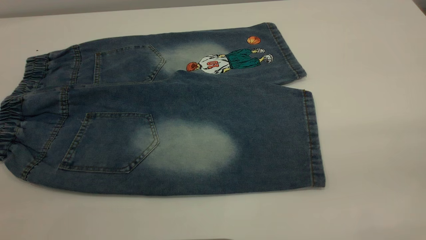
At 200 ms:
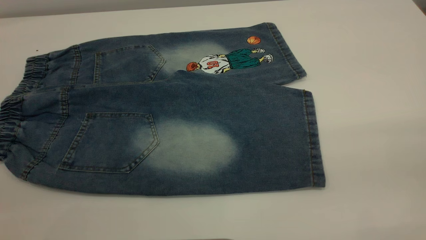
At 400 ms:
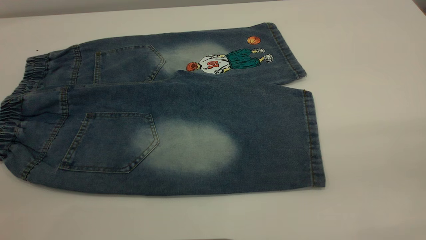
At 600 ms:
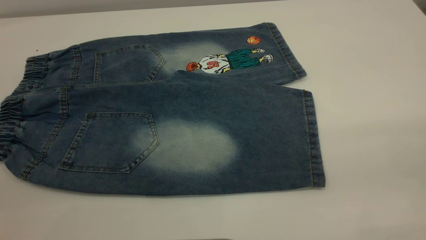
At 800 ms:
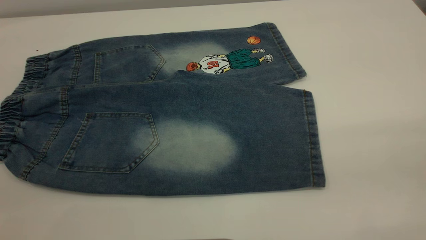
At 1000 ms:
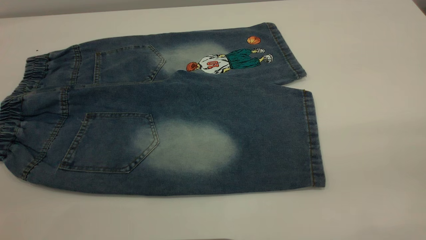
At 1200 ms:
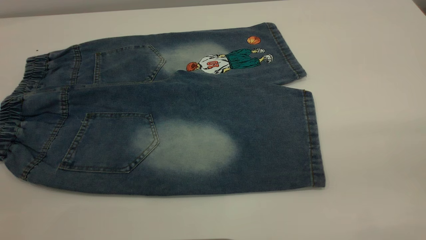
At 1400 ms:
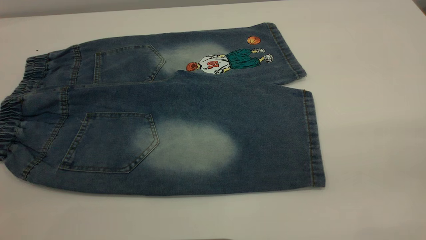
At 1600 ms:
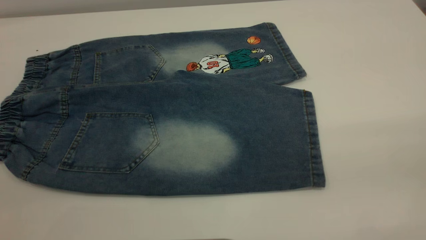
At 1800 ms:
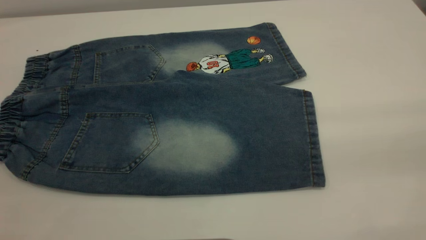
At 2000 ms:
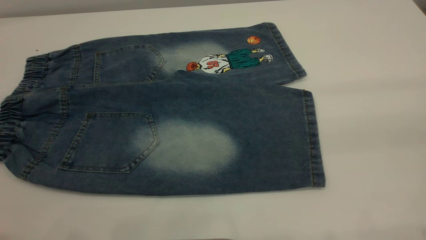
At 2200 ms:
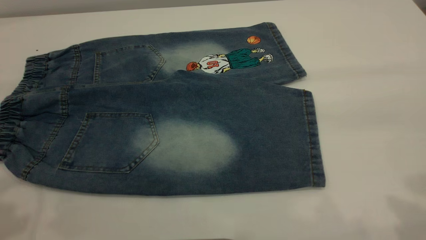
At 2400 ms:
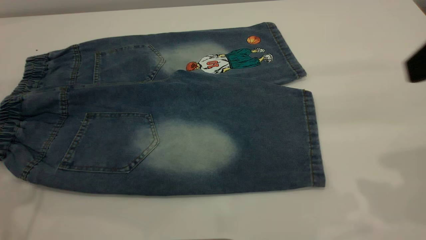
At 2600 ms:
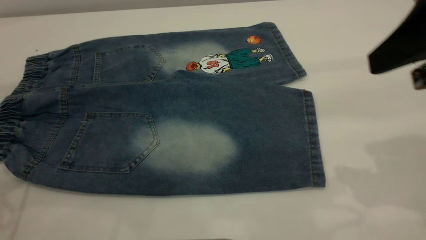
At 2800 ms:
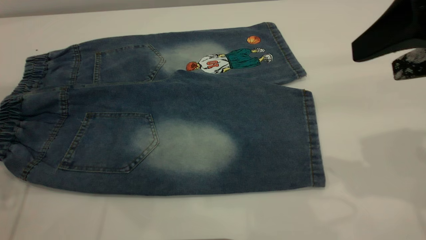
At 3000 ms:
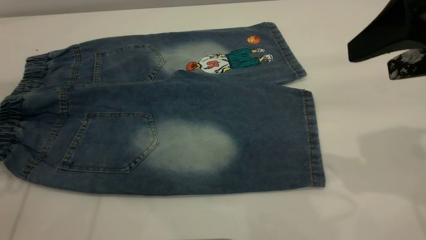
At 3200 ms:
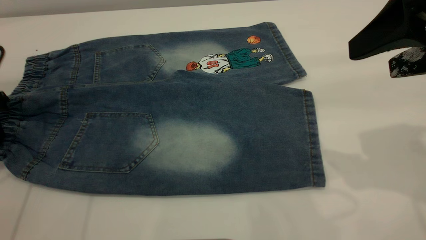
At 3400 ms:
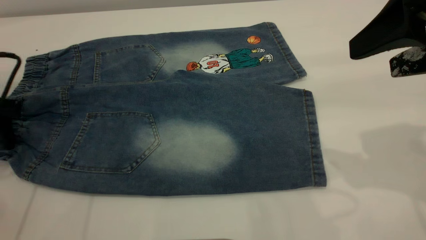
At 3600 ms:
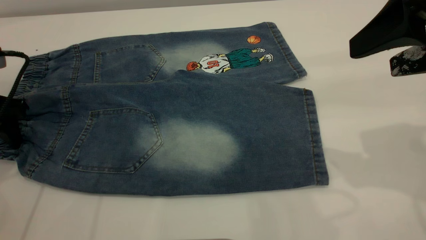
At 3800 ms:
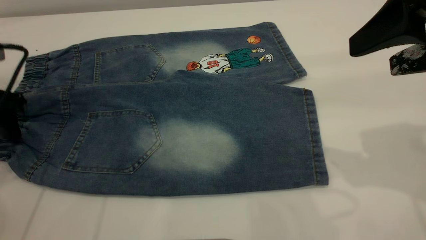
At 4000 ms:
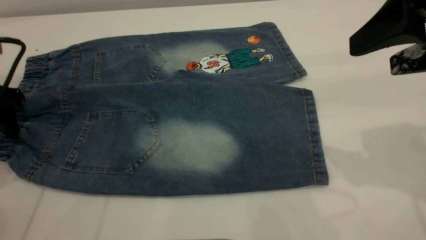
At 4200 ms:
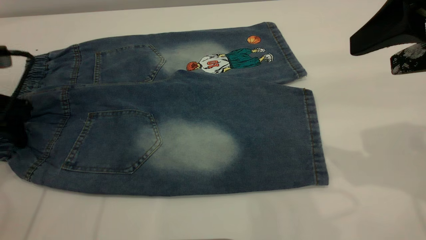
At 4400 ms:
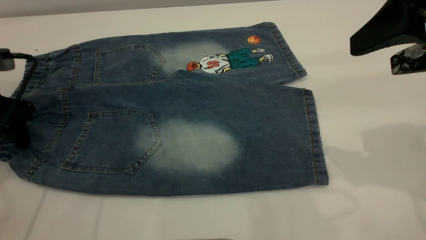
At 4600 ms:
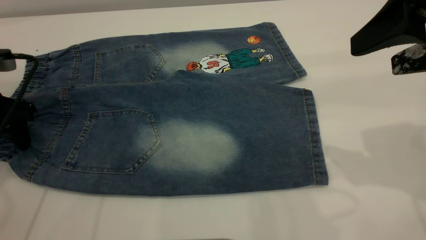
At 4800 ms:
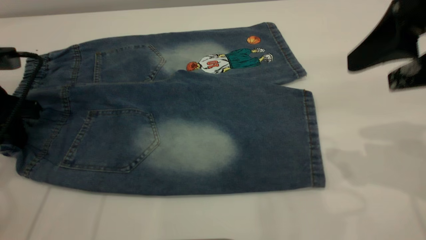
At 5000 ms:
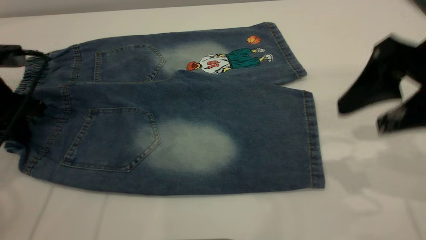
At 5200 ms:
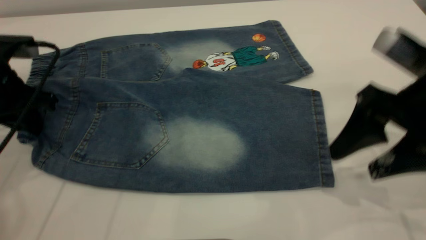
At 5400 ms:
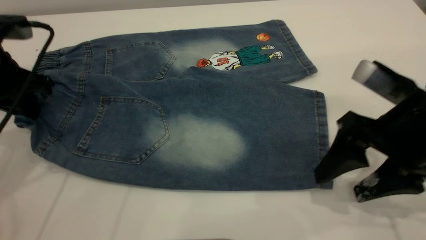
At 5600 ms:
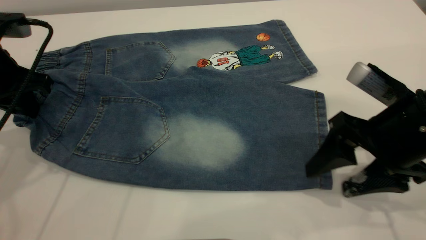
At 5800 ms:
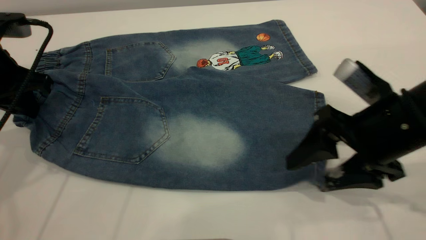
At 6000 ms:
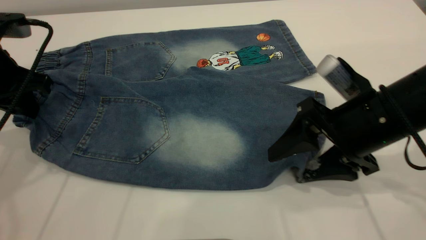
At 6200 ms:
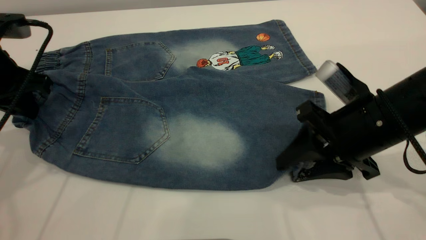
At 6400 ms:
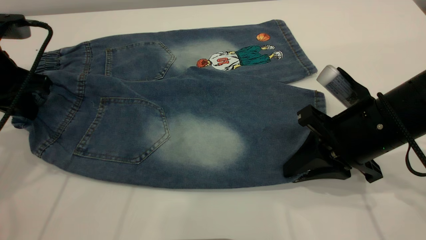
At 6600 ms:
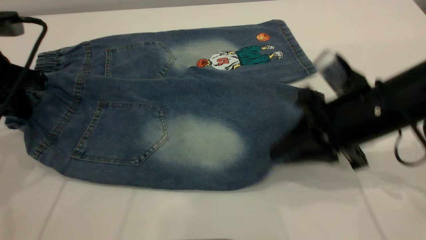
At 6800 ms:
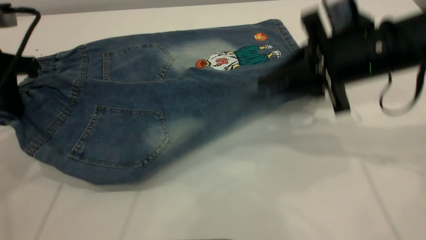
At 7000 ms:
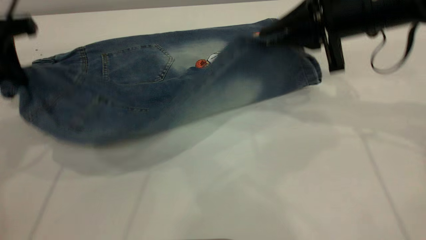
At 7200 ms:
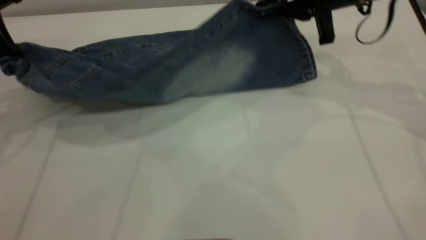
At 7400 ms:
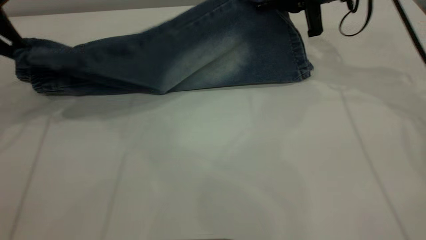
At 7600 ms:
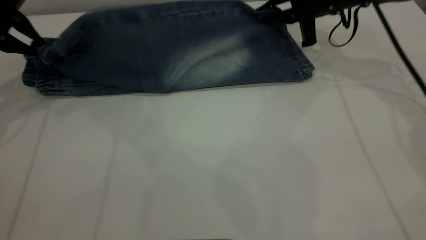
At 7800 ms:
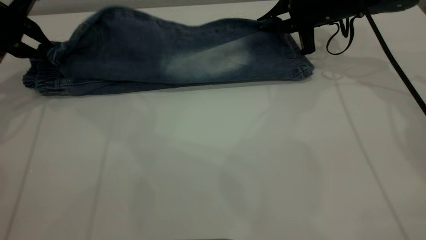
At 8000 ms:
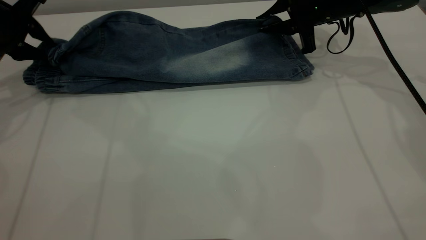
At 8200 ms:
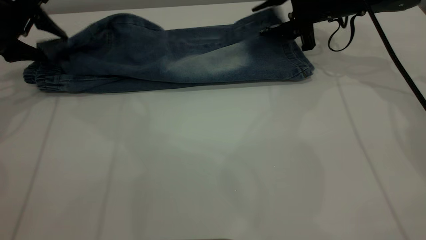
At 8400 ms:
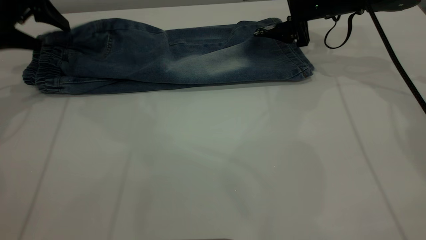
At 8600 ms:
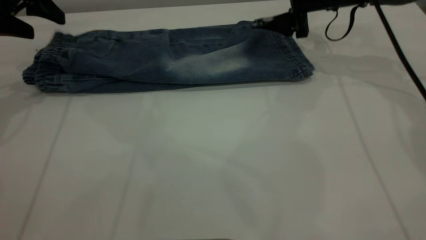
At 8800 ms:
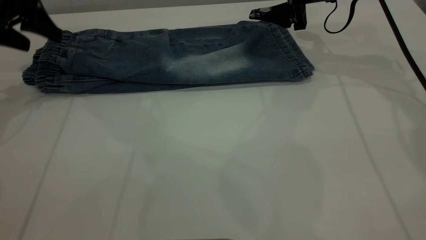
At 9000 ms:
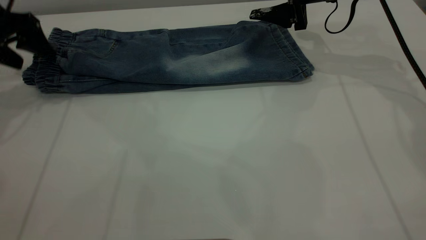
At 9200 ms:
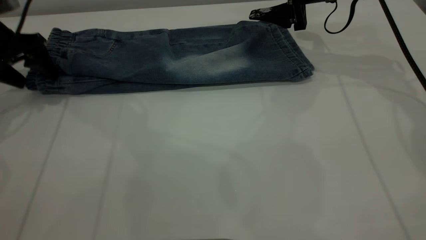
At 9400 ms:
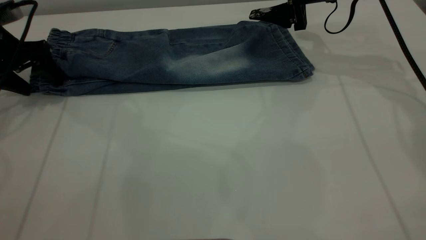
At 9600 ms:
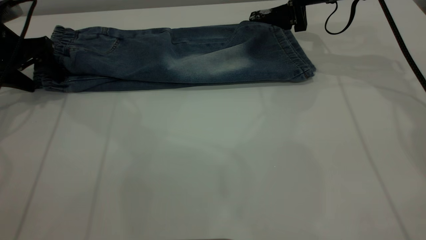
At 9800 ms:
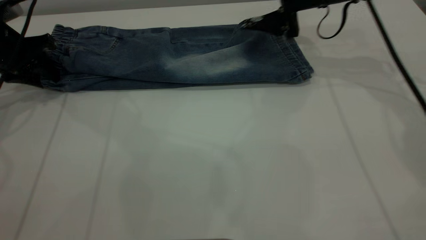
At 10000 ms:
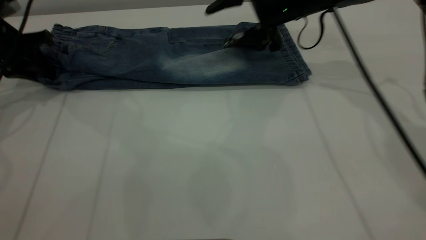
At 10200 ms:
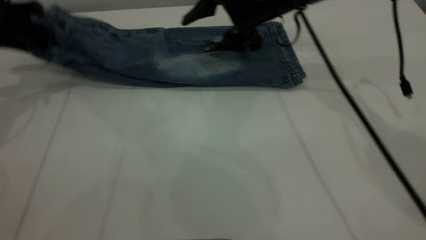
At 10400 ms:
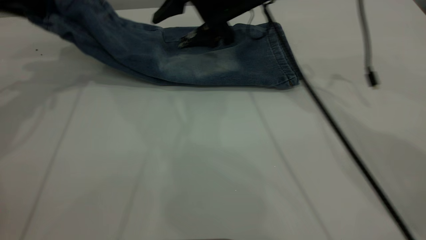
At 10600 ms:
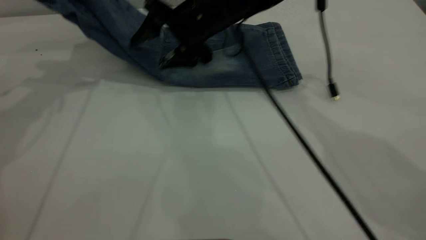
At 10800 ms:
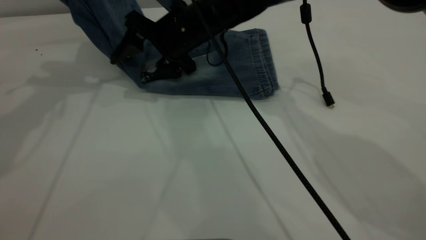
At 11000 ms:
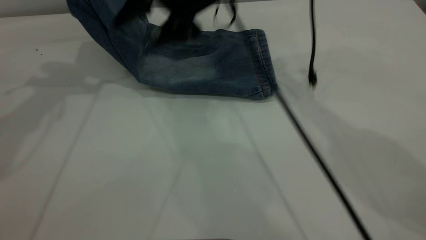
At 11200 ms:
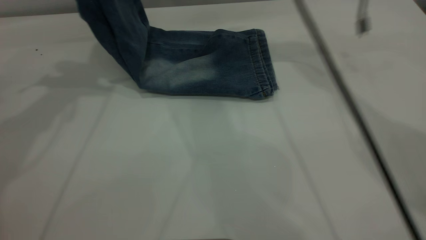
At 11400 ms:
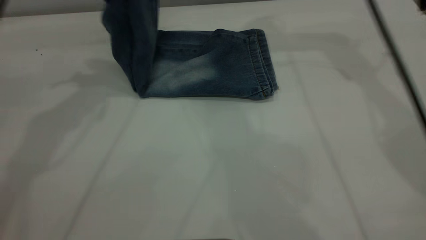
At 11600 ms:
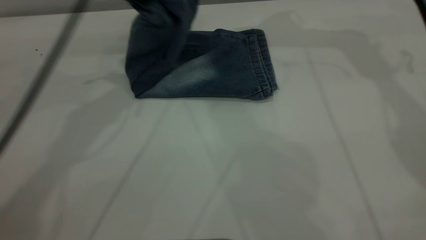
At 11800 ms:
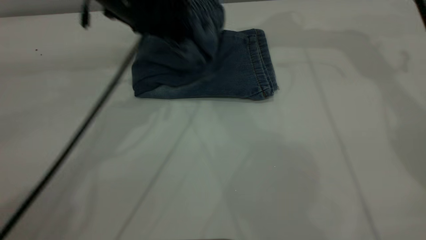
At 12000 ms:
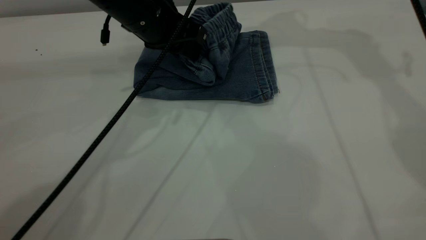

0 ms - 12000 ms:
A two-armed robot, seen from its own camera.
Step, 0 ms - 8800 ms: Fold the bottom of the pants upward.
0 ms - 1600 ms: Both grippers stay put.
1600 ms - 3000 ms: The right gripper shifts about 25 cm forward and downward.
3000 ms - 4400 ms: The left gripper changes place by some 5 cm.
4400 ms - 6000 ms: The right gripper travels downward by about 15 cm. The left gripper moves some 5 cm, and closes its fingers.
6000 ms - 7600 ms: The right gripper goes about 25 cm forward, and closes, while the left gripper shifts some 10 cm forward and to the left.
7600 ms - 9000 ms: The left gripper opens its fingers. Meanwhile the right gripper opens up.
9000 ms - 10400 ms: The right gripper goes some 15 cm to the left. Meanwhile the left gripper moves upward, roughly 5 cm, and closes its fingers.
10400 ms - 12000 ms: The left gripper heads to the right, covering some 20 cm, and opens up, while the right gripper moves upward and to the right, about 25 cm.

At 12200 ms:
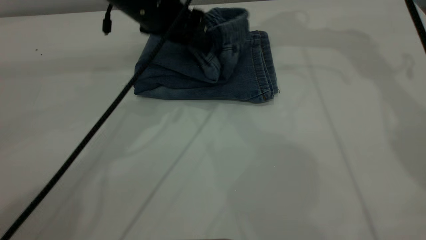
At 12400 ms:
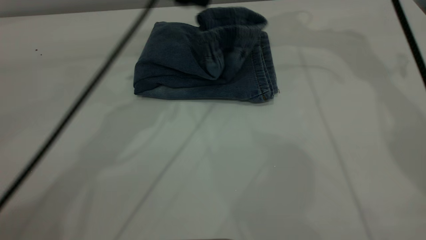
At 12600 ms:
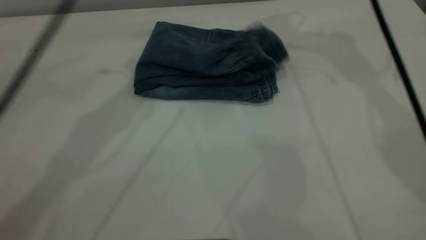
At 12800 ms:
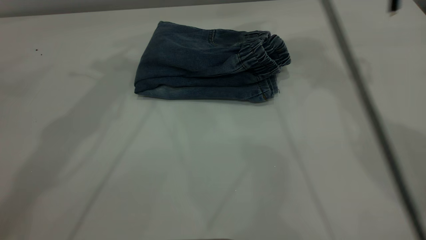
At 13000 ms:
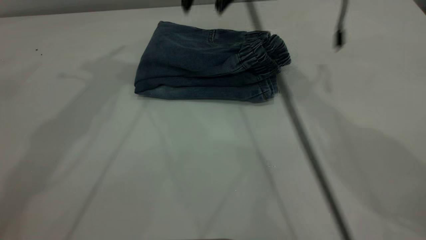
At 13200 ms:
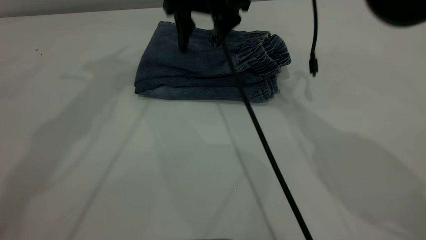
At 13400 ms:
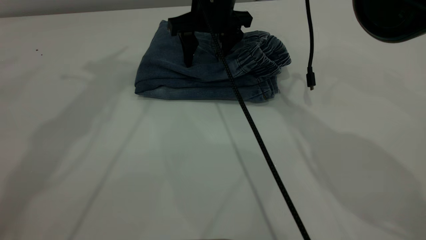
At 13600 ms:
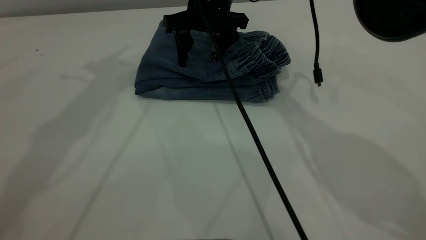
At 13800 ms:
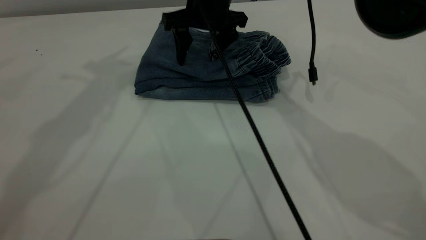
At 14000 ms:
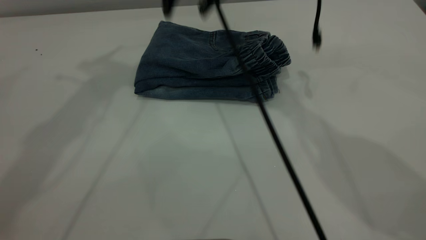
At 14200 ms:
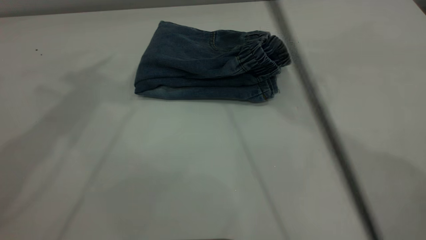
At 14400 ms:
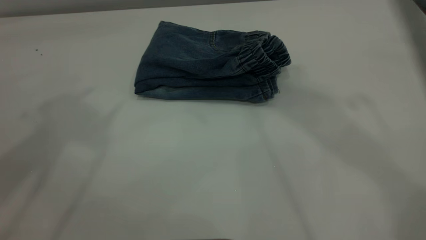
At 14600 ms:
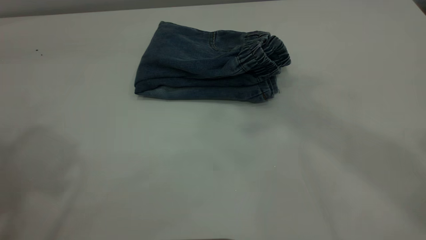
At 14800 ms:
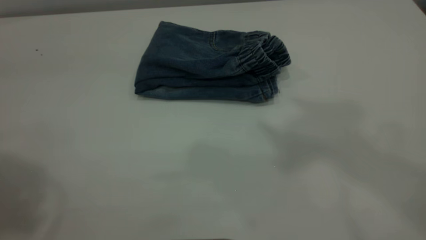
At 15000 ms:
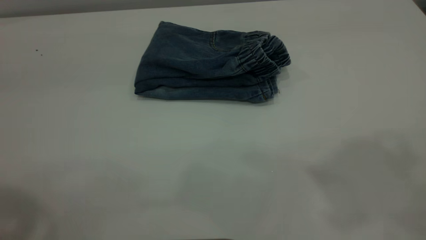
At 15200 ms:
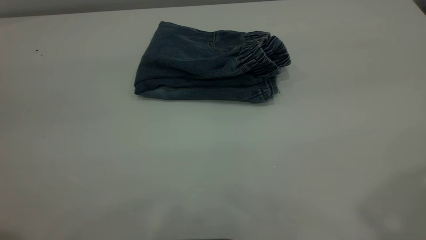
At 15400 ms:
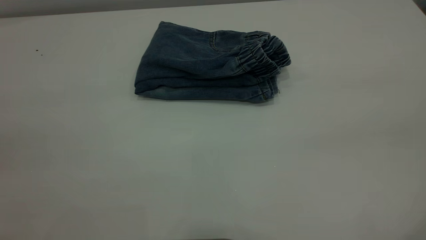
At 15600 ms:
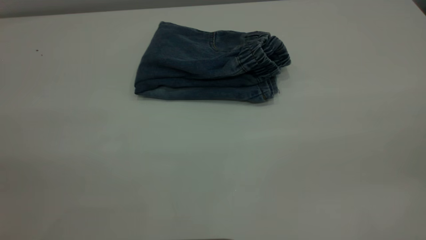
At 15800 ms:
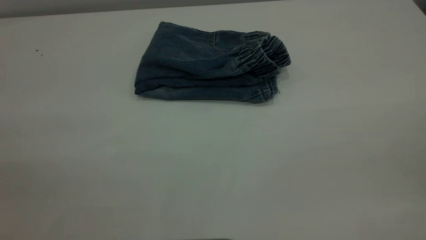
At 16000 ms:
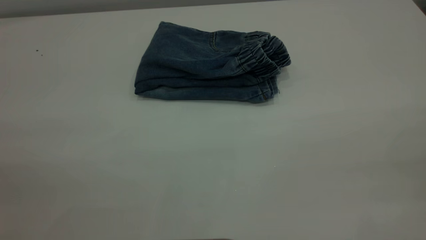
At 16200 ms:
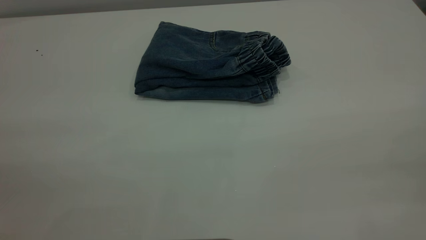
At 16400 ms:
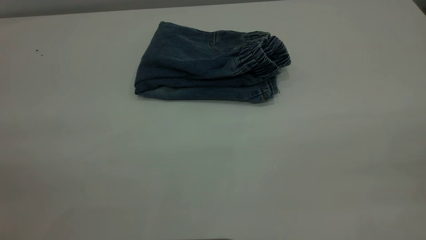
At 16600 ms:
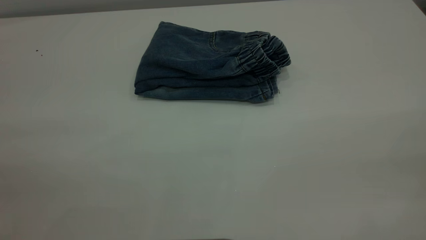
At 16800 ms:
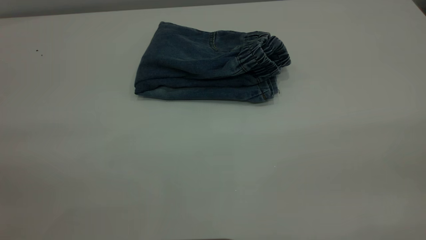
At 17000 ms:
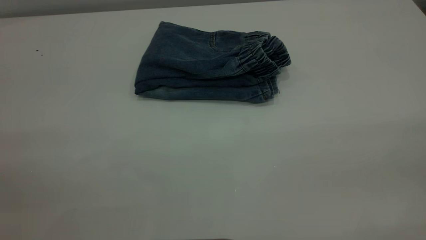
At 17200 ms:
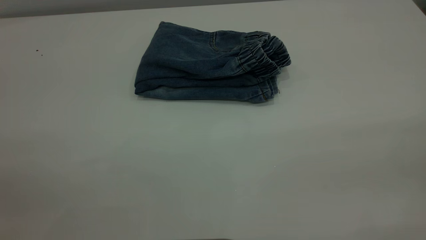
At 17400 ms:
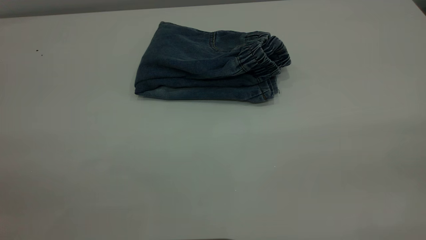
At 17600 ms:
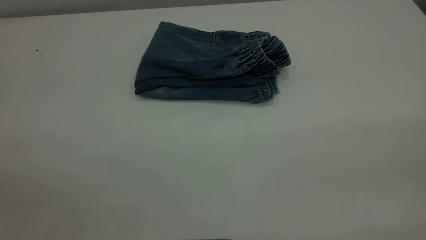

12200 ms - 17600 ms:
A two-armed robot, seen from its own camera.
12200 ms - 13600 ms: The left gripper travels upward and to the left by roughly 20 cm; the right gripper is displaced downward and to the left by about 25 cm.
13600 ms - 15000 ms: The left gripper shifts roughly 25 cm backward. Meanwhile the right gripper is displaced upward, backward and to the right by about 50 cm.
